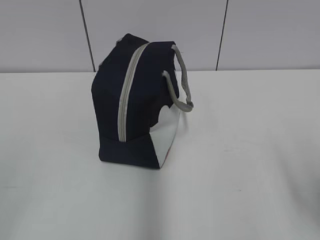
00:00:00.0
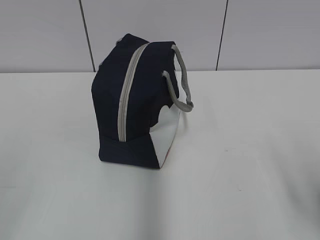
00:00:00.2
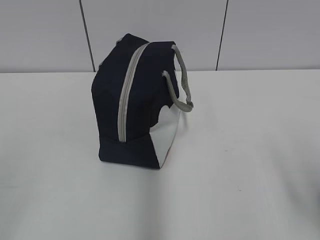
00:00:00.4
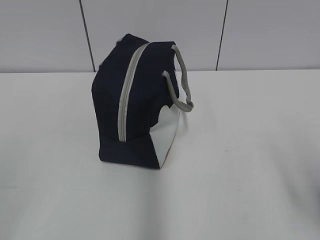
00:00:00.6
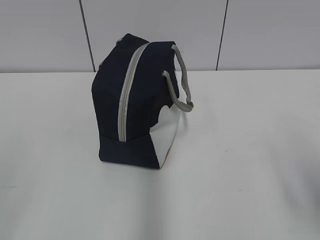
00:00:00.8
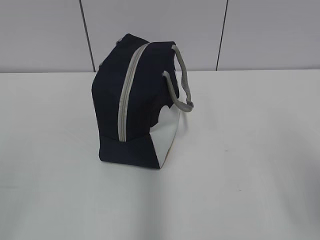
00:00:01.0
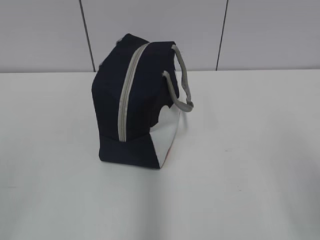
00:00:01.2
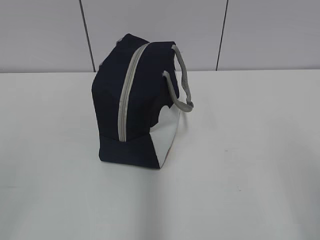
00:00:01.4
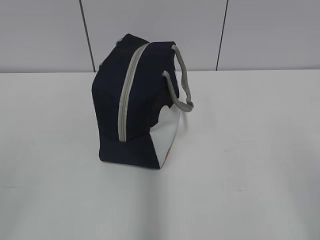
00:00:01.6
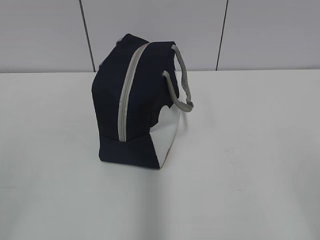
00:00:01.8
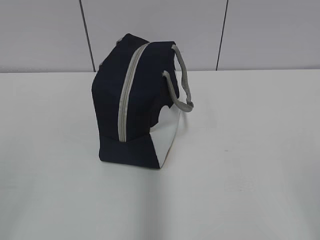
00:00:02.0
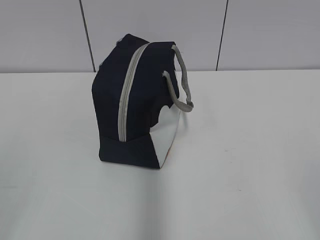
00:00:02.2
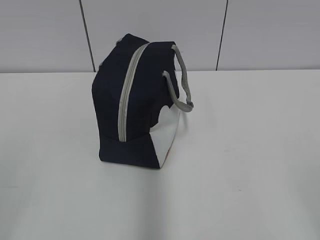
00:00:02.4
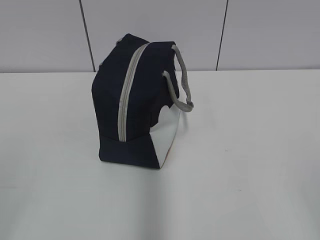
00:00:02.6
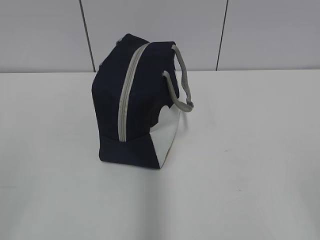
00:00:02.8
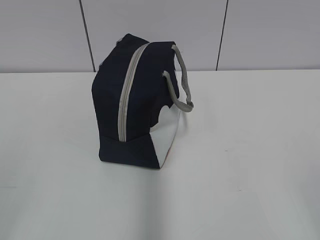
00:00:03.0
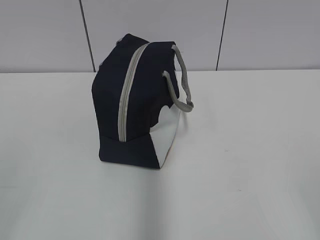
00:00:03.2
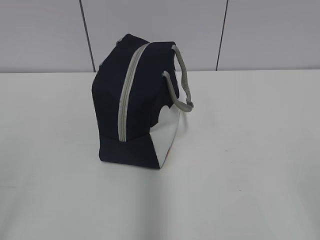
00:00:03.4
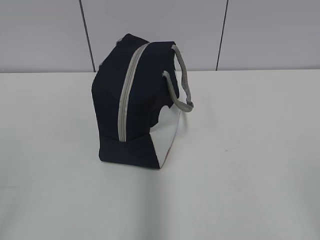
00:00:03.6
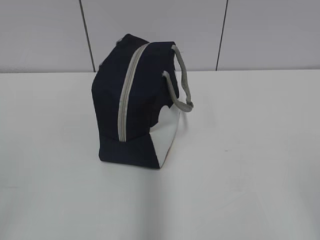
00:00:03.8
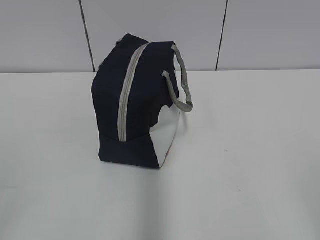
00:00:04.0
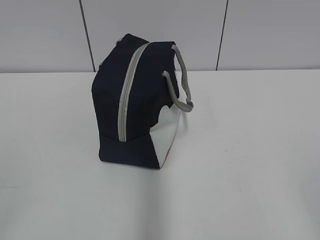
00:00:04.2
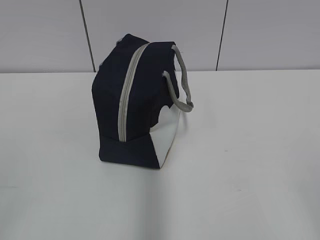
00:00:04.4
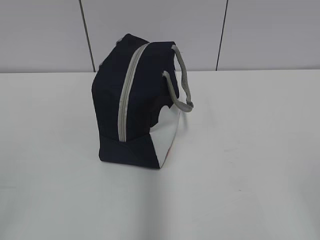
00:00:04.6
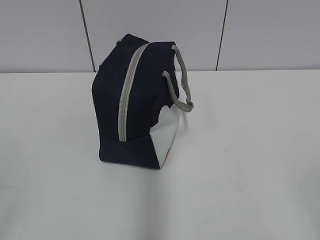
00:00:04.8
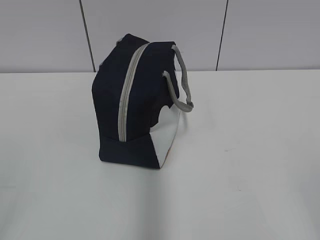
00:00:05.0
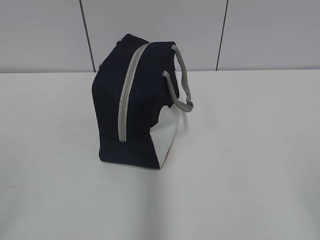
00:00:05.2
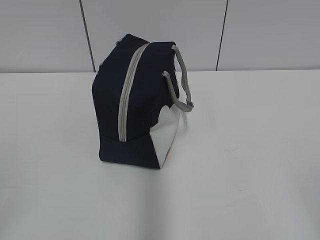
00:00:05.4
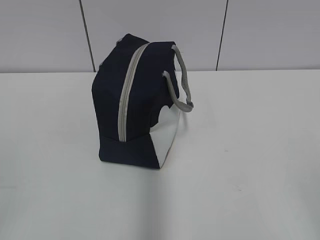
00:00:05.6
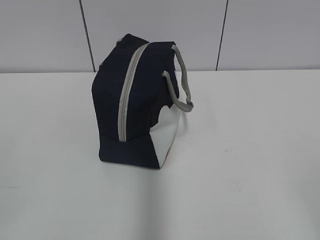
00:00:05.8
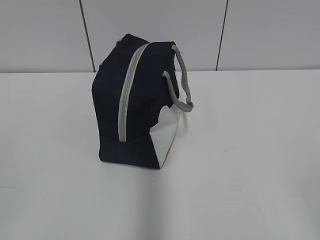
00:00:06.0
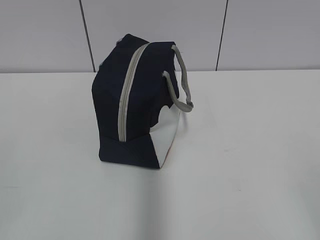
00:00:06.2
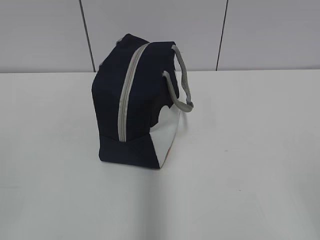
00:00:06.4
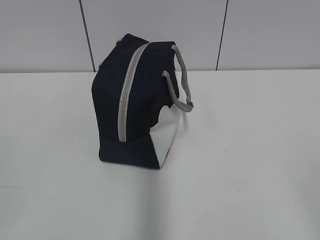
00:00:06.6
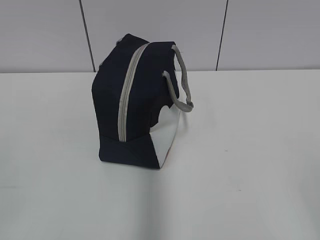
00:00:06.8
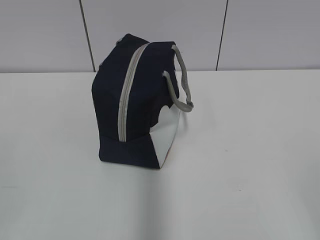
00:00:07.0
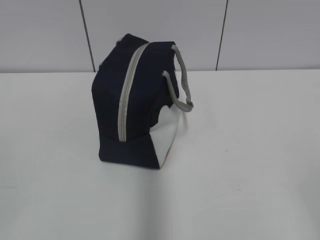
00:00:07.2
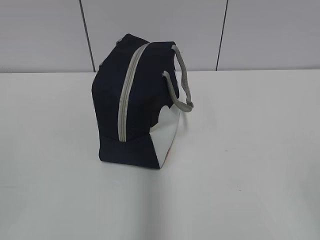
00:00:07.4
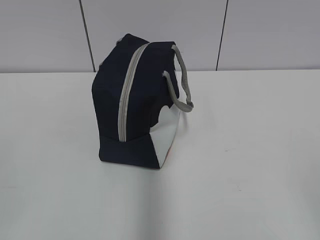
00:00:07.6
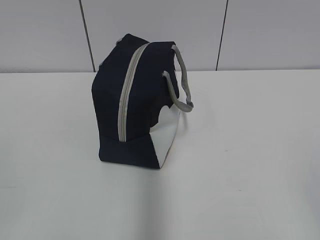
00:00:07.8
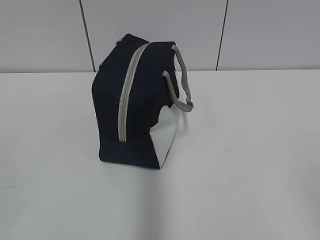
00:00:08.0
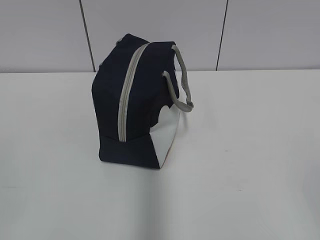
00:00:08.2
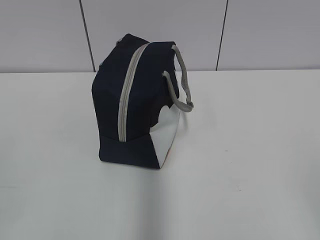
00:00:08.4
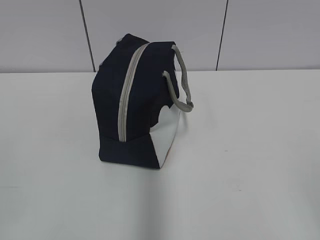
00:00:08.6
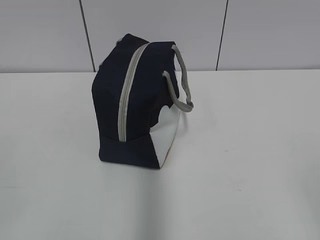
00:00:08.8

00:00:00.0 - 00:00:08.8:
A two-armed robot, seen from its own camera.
00:00:05.8 - 00:00:07.4: The two grippers keep their place.
00:00:07.4 - 00:00:08.8: The two grippers keep their place.

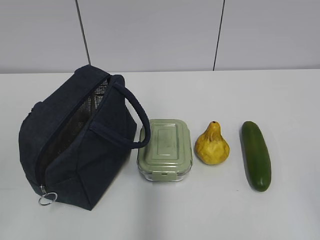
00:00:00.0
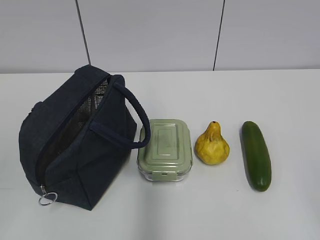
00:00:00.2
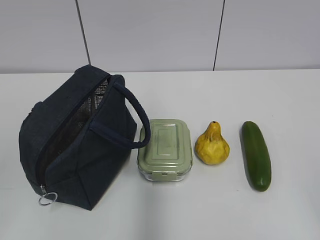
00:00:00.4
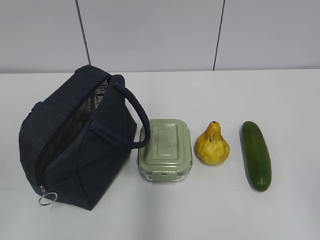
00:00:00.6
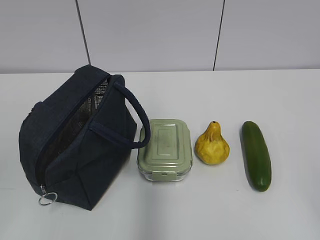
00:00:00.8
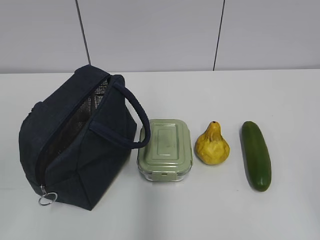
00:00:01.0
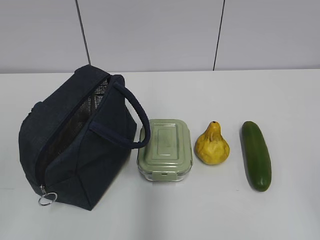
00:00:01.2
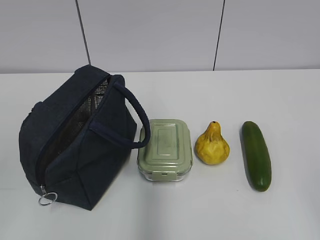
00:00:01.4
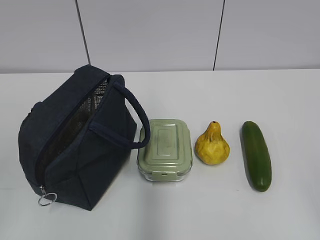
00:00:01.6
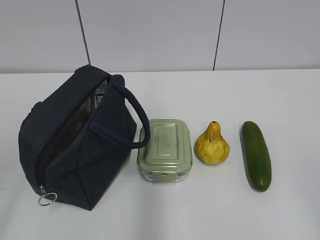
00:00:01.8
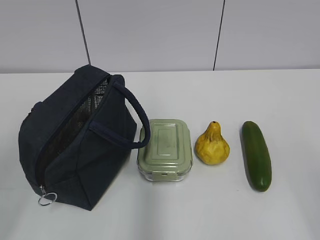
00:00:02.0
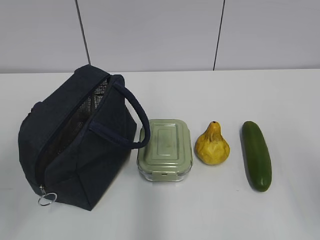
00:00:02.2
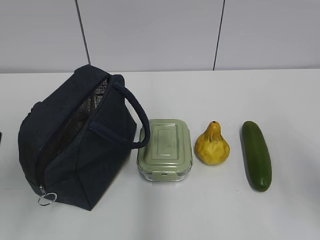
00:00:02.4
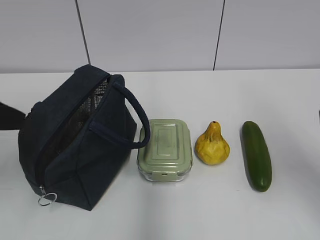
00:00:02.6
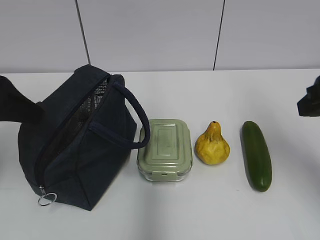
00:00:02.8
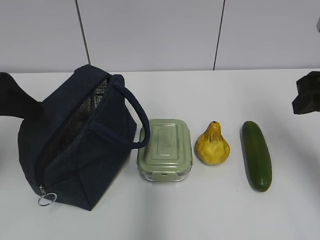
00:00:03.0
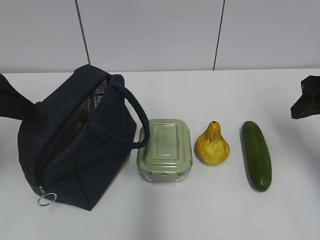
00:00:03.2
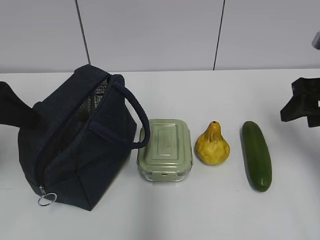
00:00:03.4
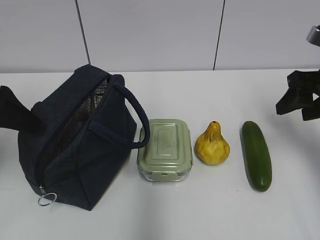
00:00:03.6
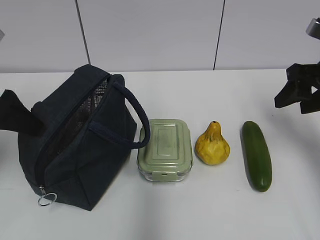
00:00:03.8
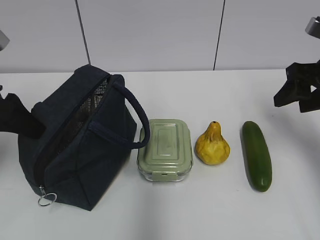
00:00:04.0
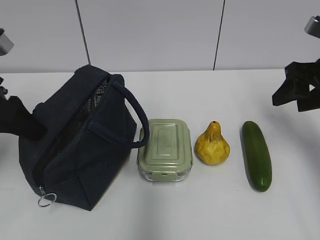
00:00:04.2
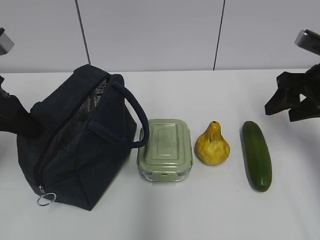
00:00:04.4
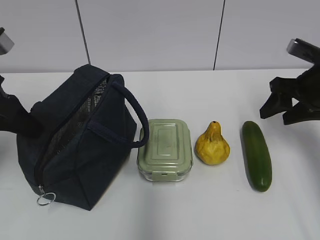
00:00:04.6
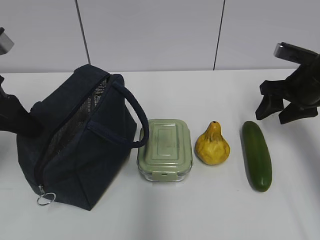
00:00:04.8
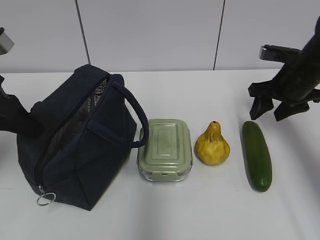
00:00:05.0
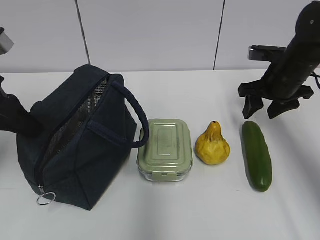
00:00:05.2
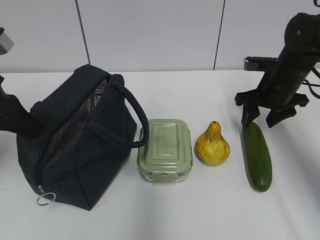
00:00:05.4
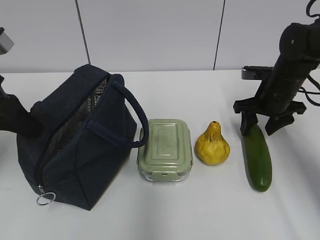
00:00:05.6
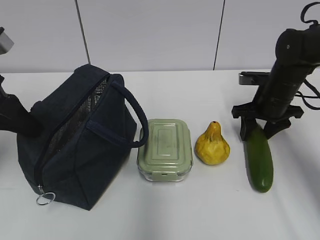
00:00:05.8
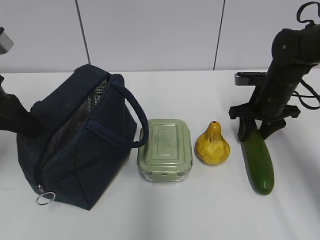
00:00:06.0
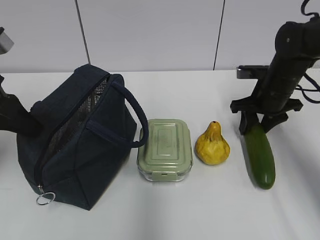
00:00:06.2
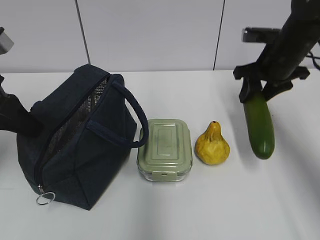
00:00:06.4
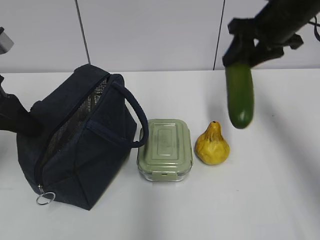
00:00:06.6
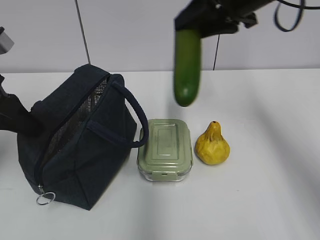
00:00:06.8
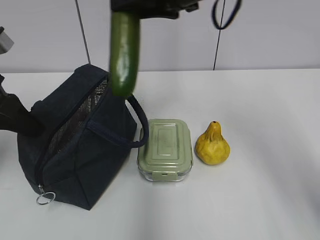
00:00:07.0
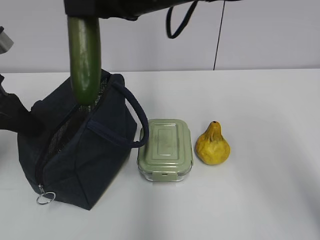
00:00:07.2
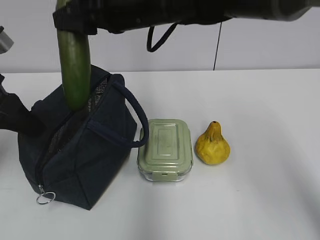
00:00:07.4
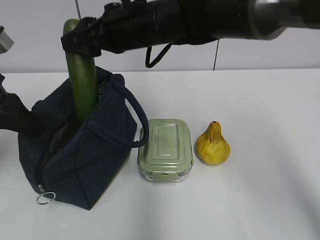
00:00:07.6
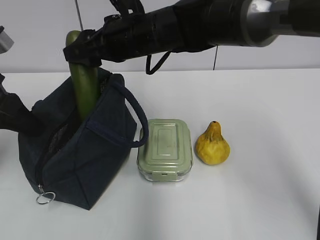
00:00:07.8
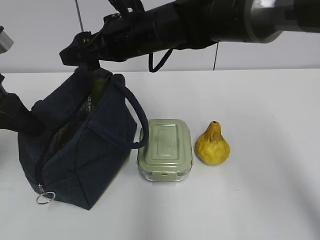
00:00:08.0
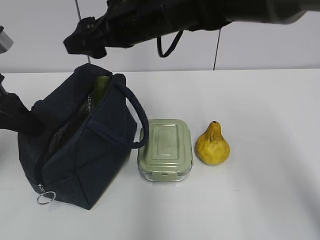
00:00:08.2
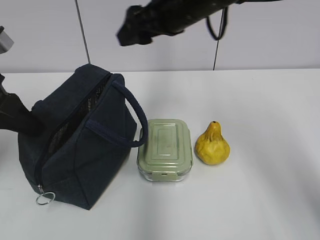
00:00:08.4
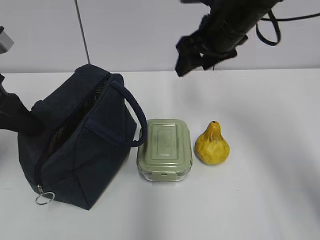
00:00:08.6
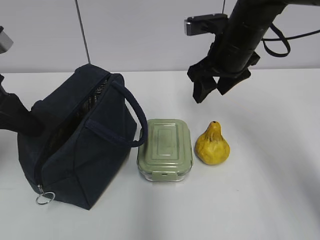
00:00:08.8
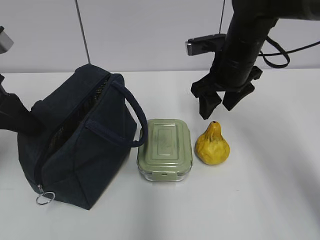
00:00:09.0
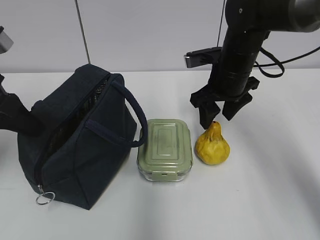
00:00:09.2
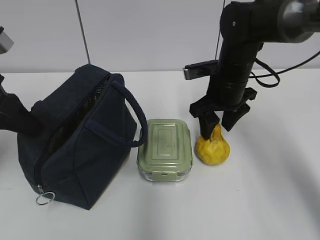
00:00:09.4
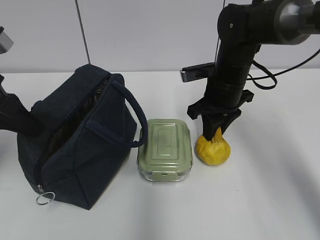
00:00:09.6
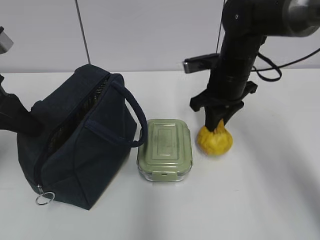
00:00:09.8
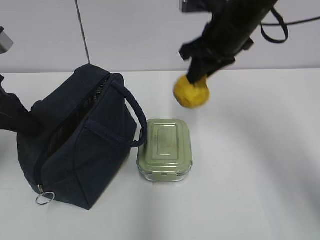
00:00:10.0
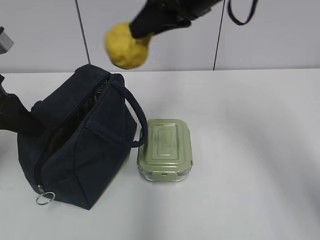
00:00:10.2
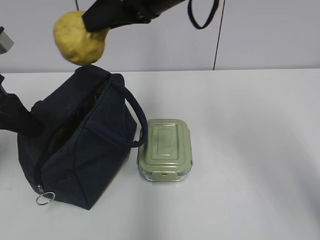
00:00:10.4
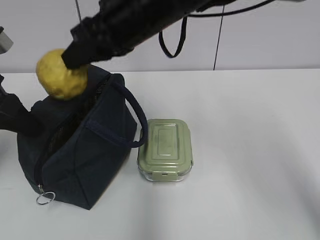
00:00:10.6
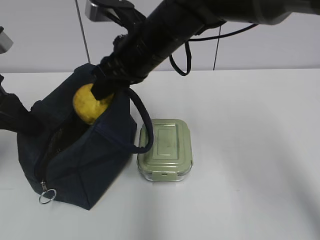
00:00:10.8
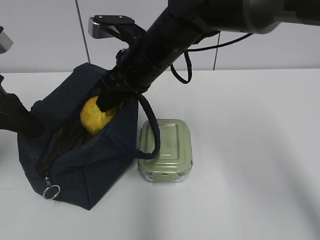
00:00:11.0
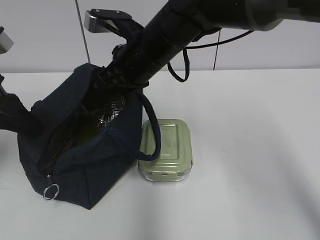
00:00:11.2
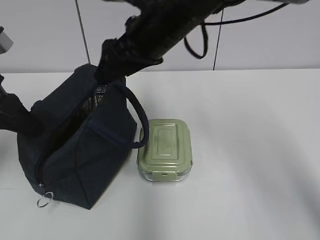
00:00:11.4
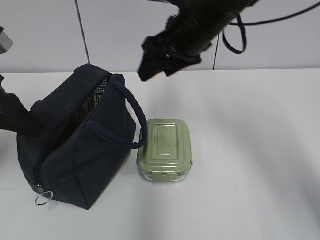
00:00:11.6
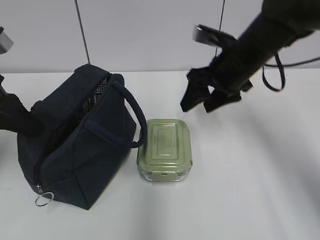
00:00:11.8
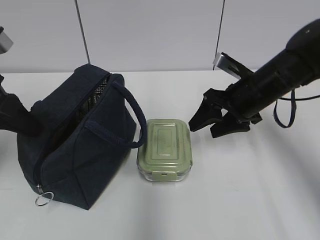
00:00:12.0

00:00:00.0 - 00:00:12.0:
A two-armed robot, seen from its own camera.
00:00:01.6 - 00:00:03.0: Both grippers travel together forward, approximately 25 cm. The left gripper opens its fingers.
00:00:03.0 - 00:00:04.4: The left gripper closes, while the right gripper travels forward and downward by roughly 10 cm.
00:00:04.4 - 00:00:06.0: The right gripper shifts roughly 10 cm downward and forward.
00:00:06.0 - 00:00:07.6: The right gripper shifts approximately 30 cm to the left and upward.
00:00:07.6 - 00:00:09.0: The right gripper is displaced to the right by about 15 cm.
00:00:09.0 - 00:00:10.4: The right gripper shifts approximately 15 cm upward and to the left, and closes up.
00:00:10.4 - 00:00:12.0: The right gripper goes up and down, some 20 cm each way, reversing 2 times, and opens up.

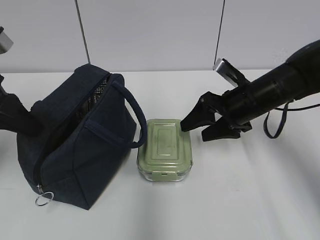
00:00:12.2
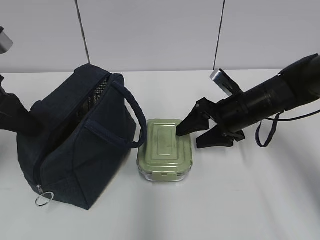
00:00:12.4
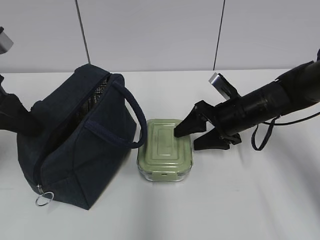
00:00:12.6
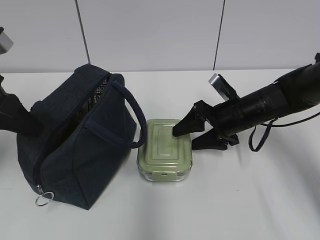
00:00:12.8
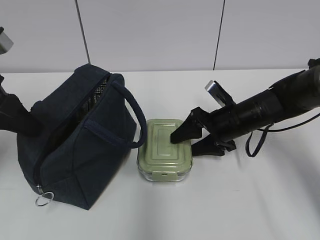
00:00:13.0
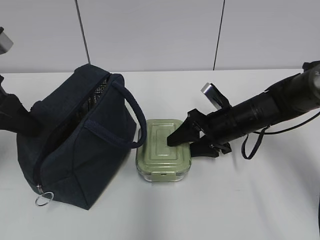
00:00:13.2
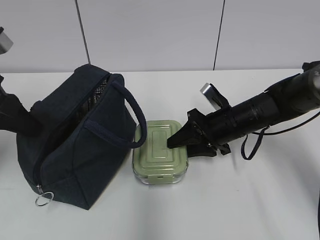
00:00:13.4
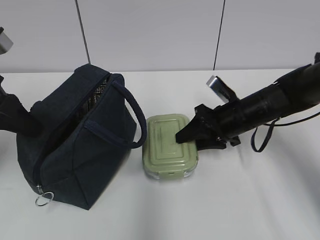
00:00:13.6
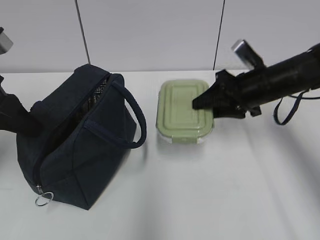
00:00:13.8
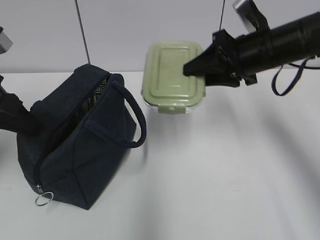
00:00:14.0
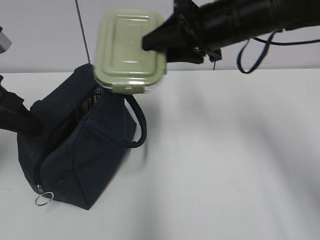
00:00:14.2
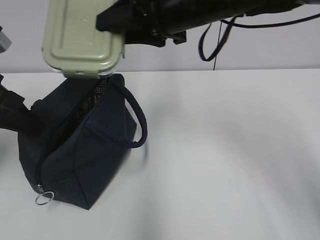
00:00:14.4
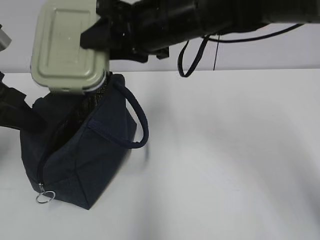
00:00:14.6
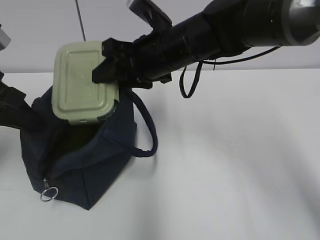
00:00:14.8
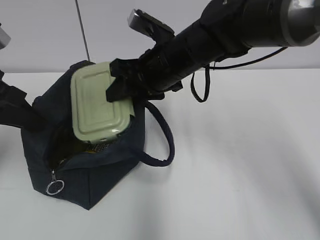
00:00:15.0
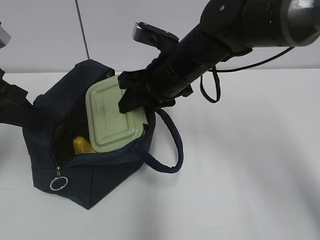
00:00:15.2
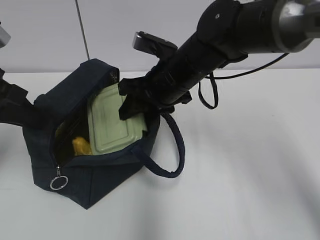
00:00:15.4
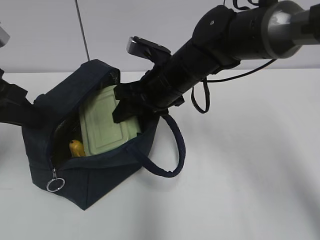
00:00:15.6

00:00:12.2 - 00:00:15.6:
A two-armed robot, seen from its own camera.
00:00:12.2 - 00:00:13.8: The right gripper closes its fingers.
00:00:13.8 - 00:00:15.6: The right gripper shifts about 15 cm to the left.
